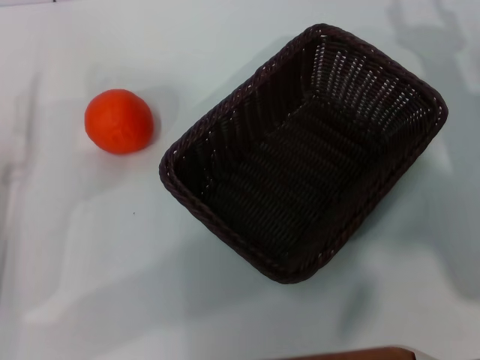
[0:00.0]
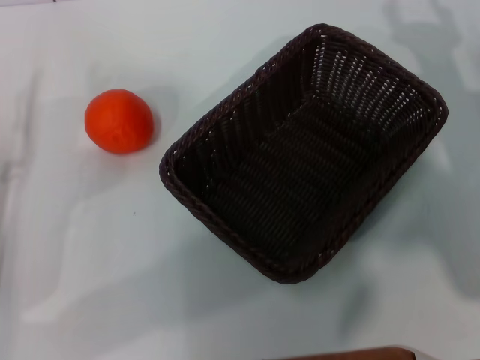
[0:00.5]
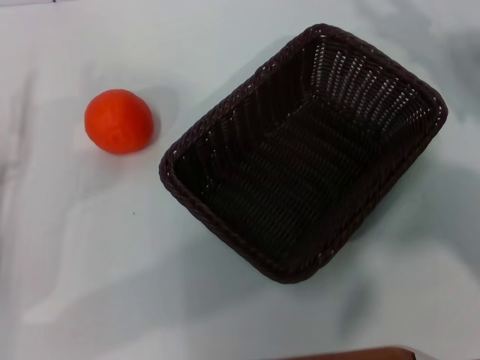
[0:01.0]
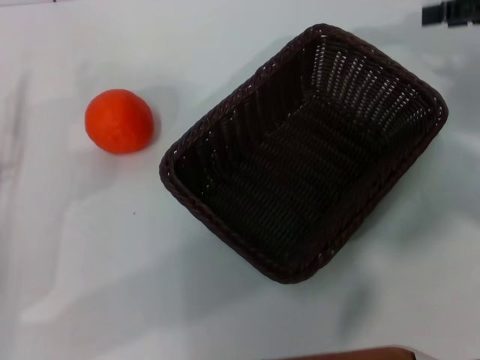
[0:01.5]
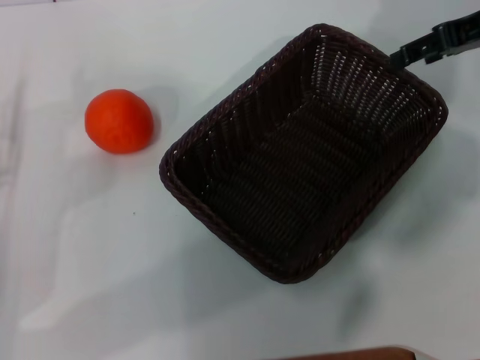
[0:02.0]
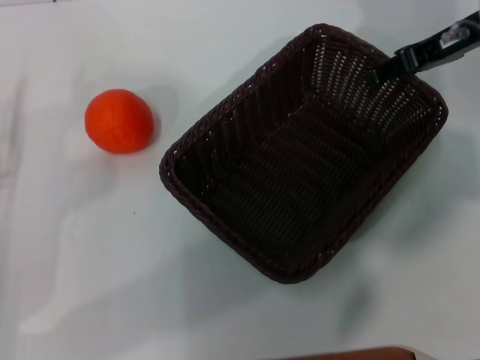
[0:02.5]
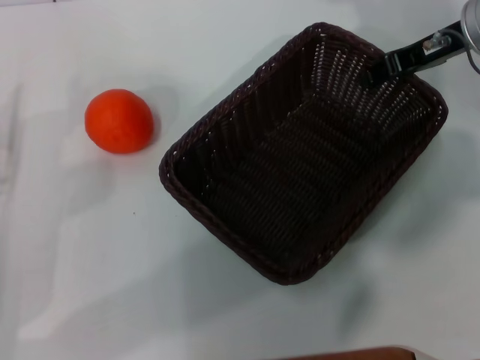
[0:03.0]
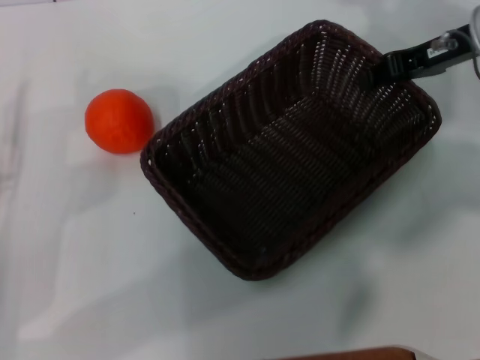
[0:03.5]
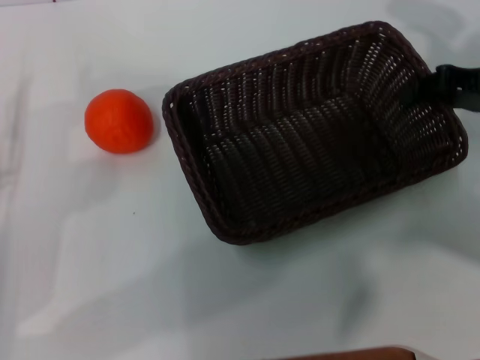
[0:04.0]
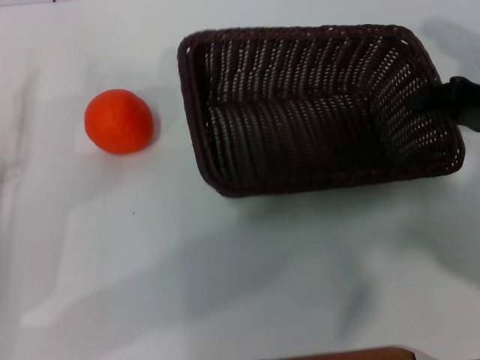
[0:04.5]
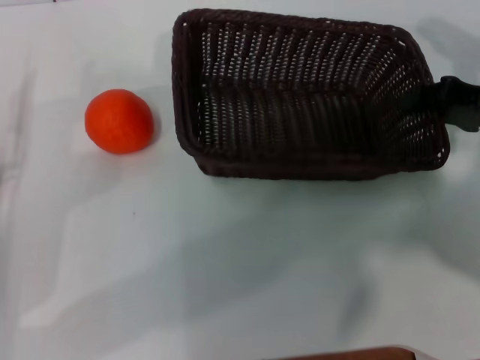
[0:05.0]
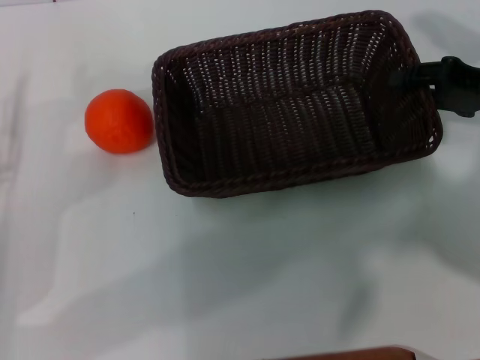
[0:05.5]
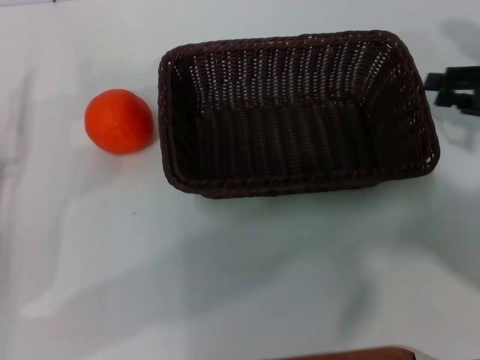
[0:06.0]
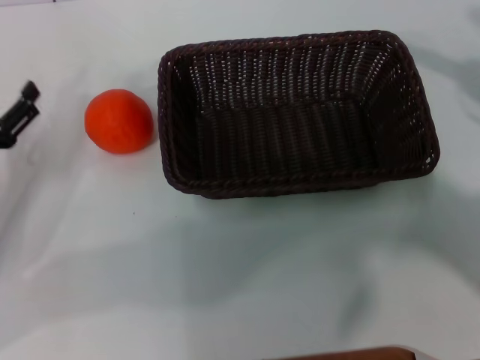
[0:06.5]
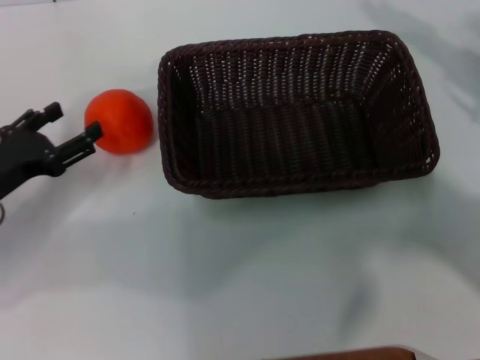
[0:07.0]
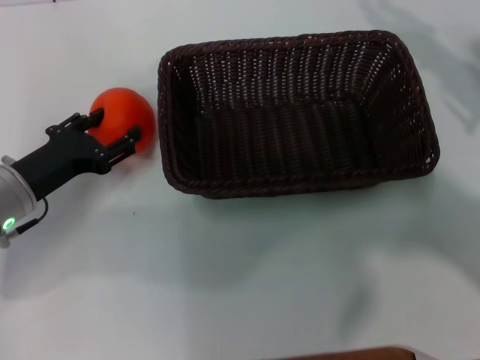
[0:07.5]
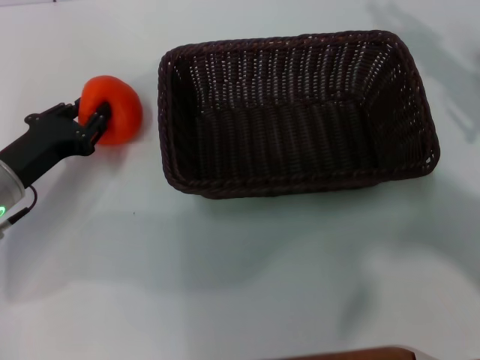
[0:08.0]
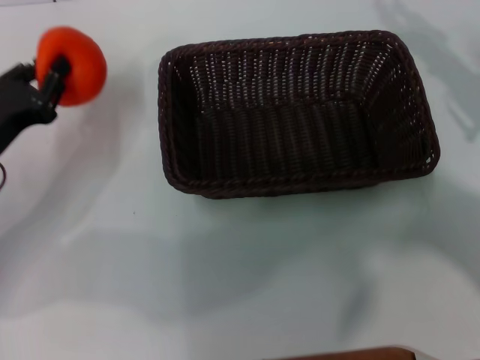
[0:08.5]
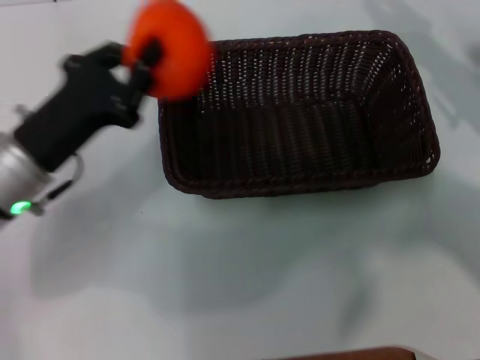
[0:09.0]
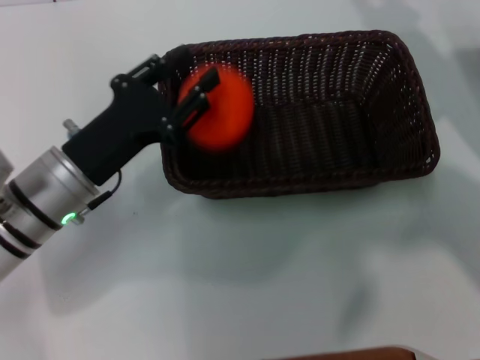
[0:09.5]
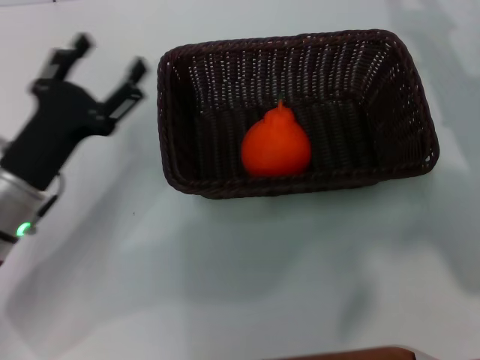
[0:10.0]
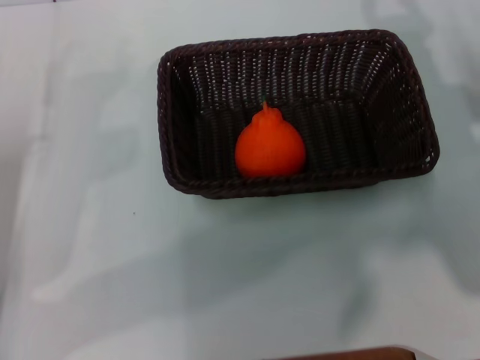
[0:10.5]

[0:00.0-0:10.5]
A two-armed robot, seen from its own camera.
Task of the whole recording: the right gripper pick up the black basket and place it horizontally in the middle of the table, the left gripper pick up the orange and place it into the black basket.
Step, 0:00.0 to 0:03.5: Pick up the dark basket with the right gripper.
Step, 0:04.0 to 0:05.5: Place the dark basket in the center of view with the right gripper.
Step, 0:06.5 to 0:08.0: Pick up the orange with the left gripper.
Step, 0:08.5 to 0:09.5: Place the orange into the dark basket with the left gripper.
0:00.0 to 0:02.0: The right gripper travels upward and forward by approximately 20 cm.
0:02.0 to 0:04.0: The right gripper goes approximately 5 cm downward, and closes its fingers.
0:04.0 to 0:06.5: The right gripper goes some 10 cm to the right and backward, and opens up.
0:06.5 to 0:08.5: The left gripper closes up.
0:08.5 to 0:10.5: The right gripper travels to the left by about 5 cm. Meanwhile the left gripper travels to the right and back again, about 10 cm each way, and opens up.
